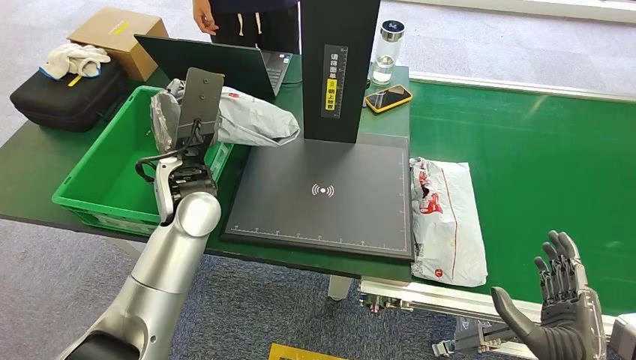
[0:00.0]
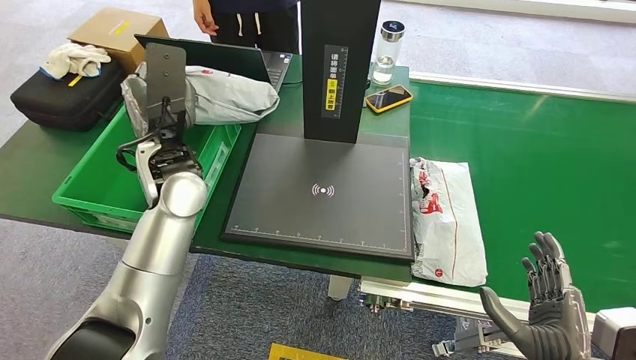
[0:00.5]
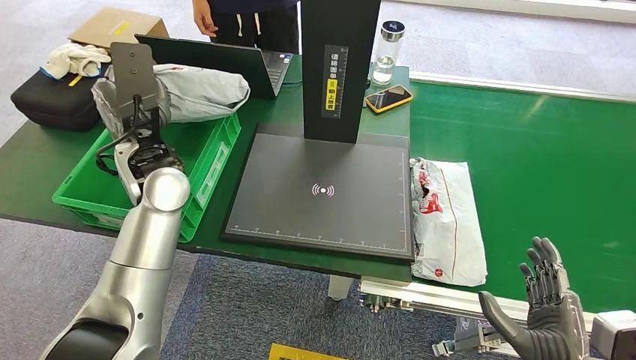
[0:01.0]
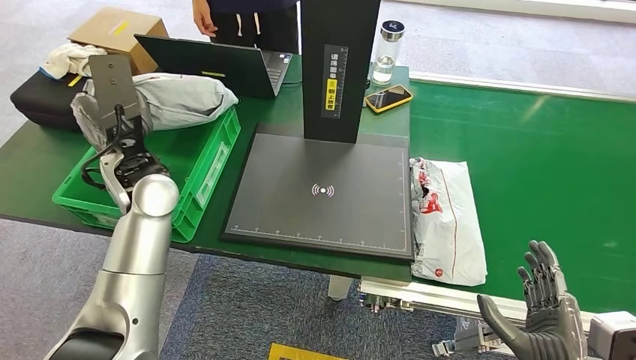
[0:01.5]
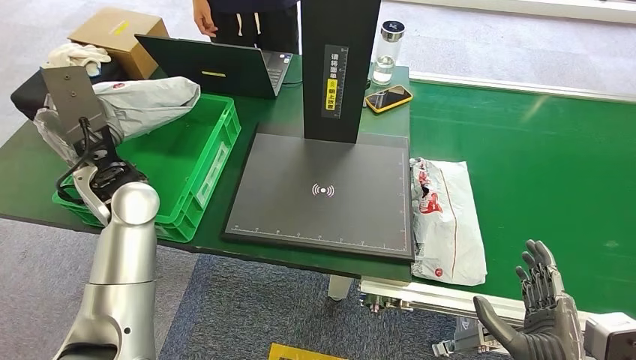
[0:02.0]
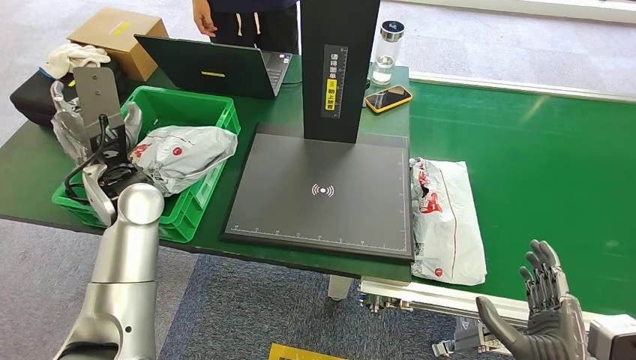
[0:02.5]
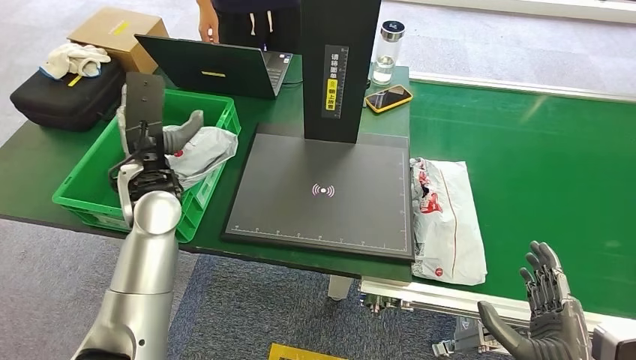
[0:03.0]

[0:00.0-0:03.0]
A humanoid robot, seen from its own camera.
Step, 0:00.0 to 0:03.0: Place the package into the parcel locker.
0:00.0 to 0:01.5: The left hand shifts about 5 cm to the left.
0:01.5 to 0:03.0: The hands move only a little.
